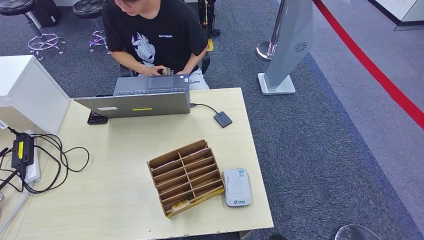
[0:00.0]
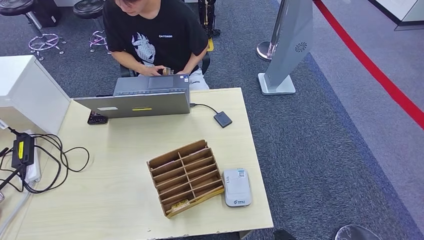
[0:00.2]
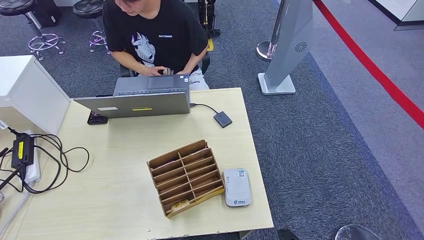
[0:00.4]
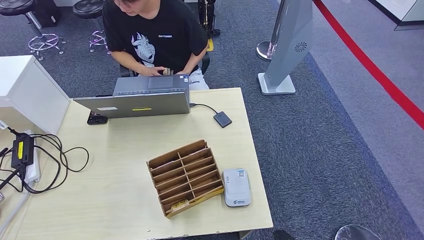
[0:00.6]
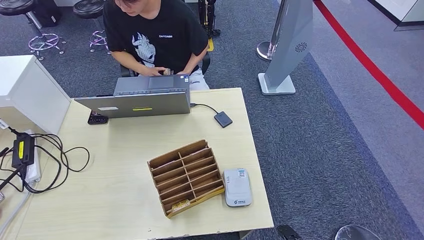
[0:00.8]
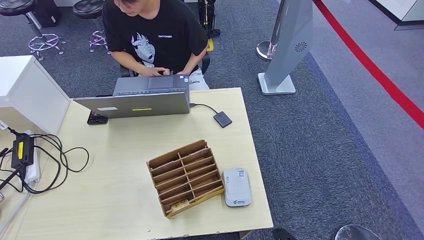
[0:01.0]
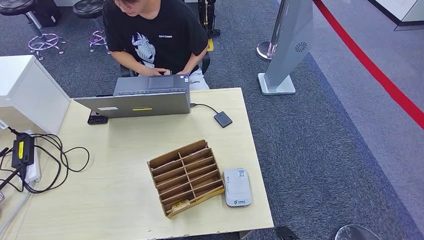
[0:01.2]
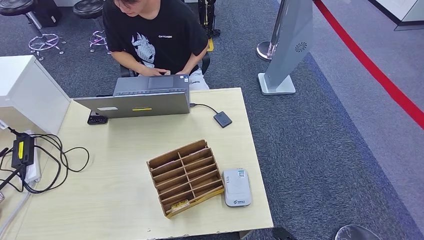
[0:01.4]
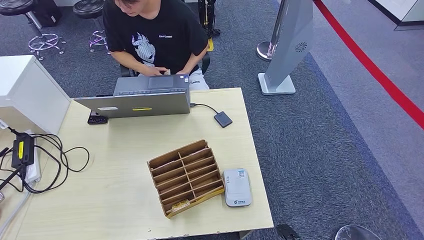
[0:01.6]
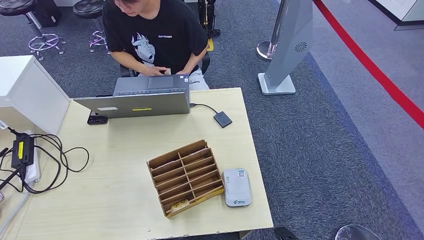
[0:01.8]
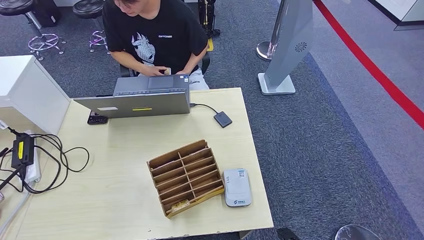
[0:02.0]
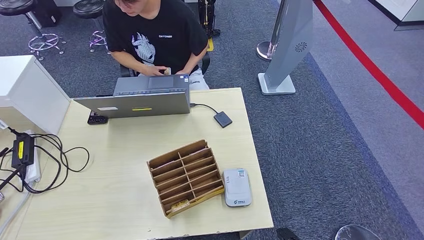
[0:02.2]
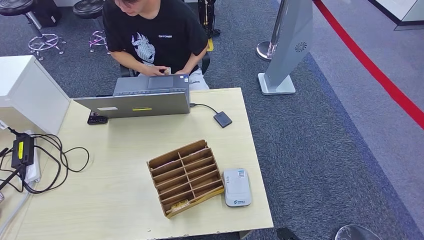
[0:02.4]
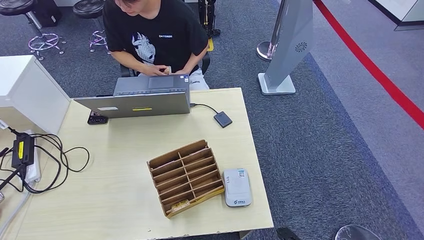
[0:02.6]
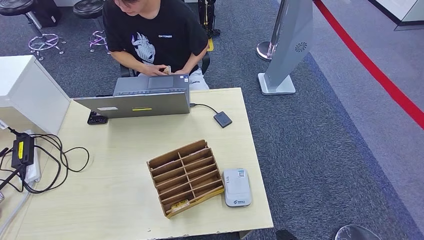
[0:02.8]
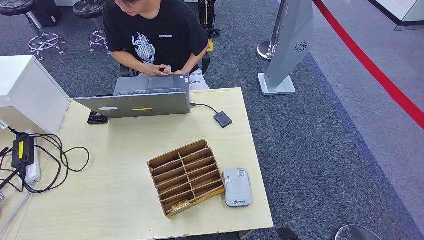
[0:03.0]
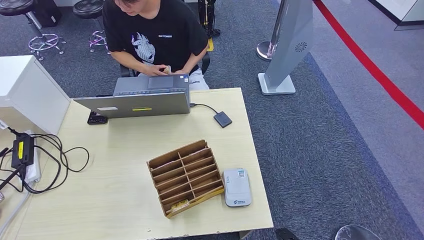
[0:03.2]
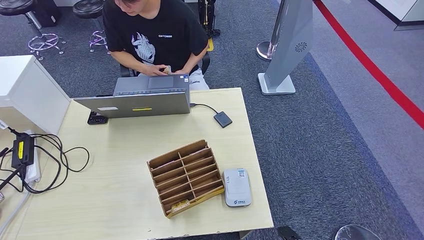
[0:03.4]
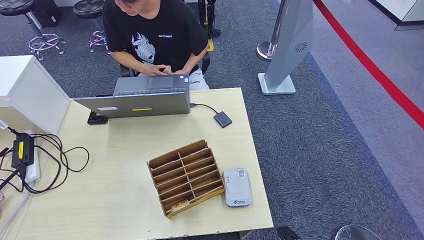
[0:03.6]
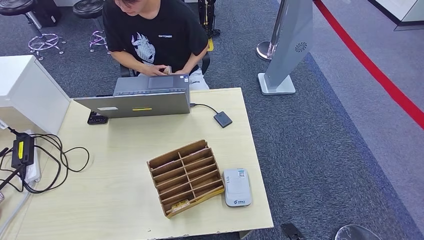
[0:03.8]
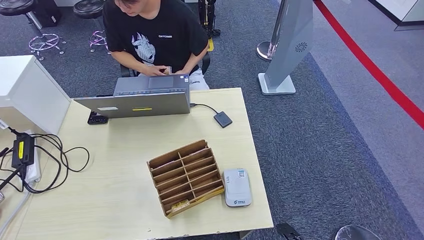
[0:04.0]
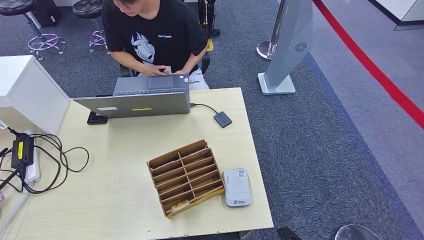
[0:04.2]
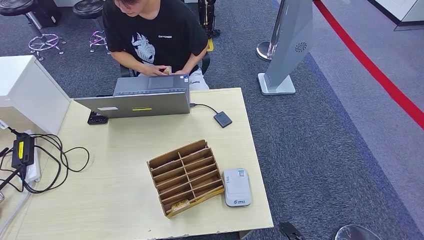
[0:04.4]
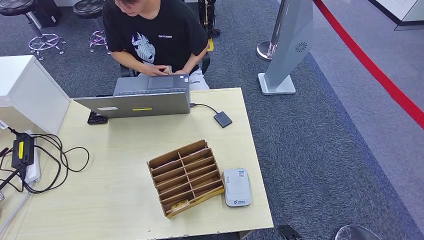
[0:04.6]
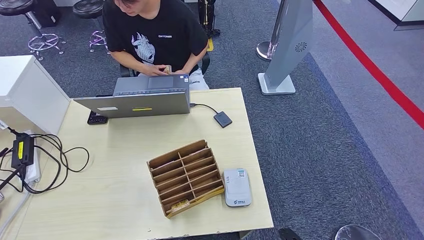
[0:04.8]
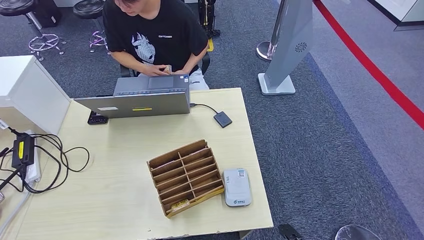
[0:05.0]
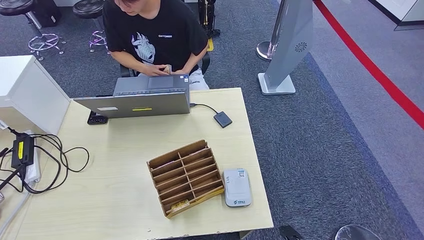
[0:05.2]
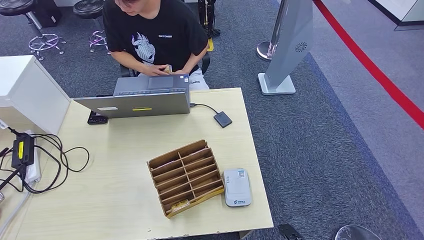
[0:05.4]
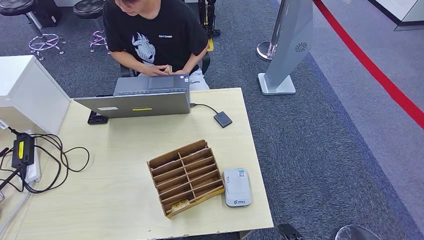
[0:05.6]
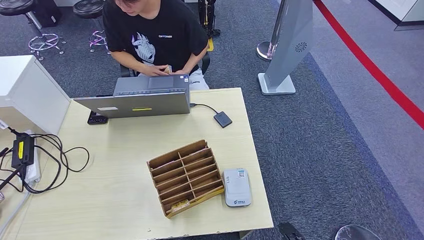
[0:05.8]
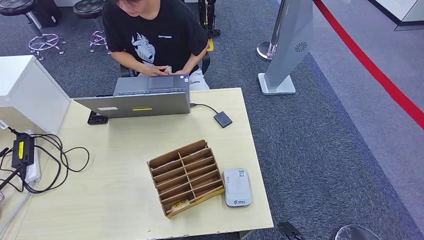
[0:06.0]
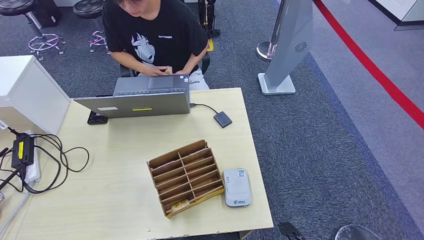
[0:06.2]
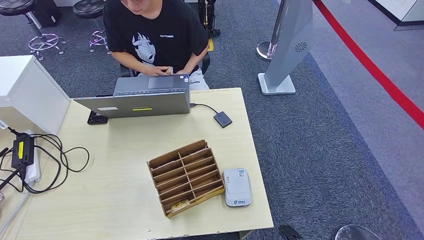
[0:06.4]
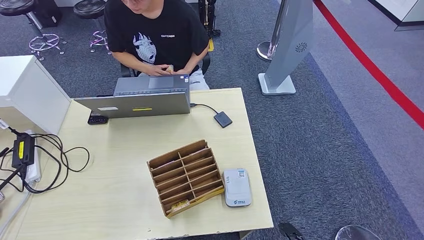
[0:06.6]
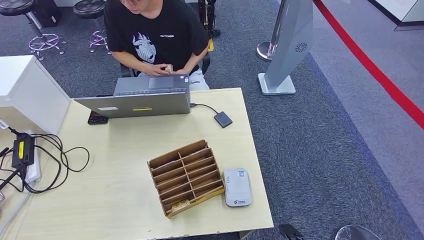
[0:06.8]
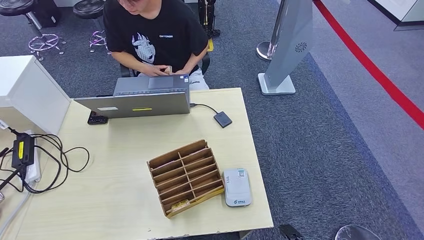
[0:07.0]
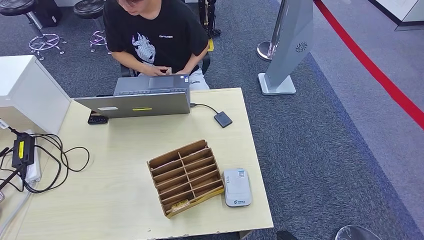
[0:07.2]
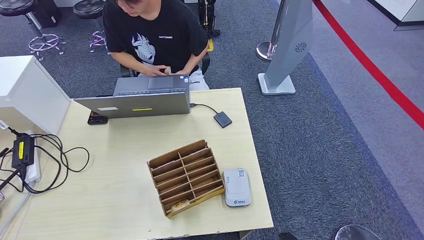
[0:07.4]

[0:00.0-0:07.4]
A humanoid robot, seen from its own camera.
Step, 0:00.0 to 0:07.4: Hand the room key to the person.
